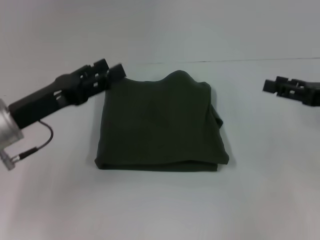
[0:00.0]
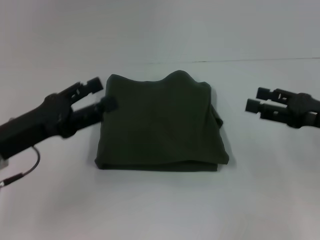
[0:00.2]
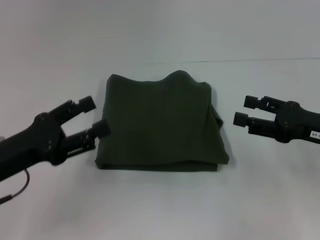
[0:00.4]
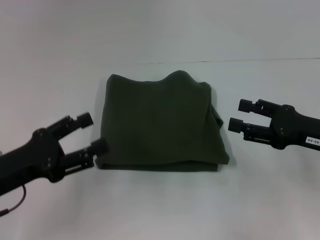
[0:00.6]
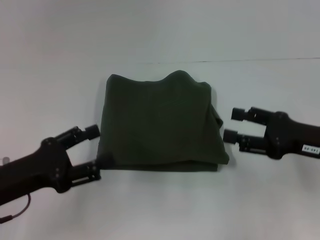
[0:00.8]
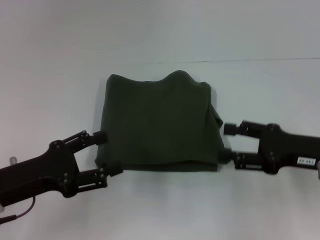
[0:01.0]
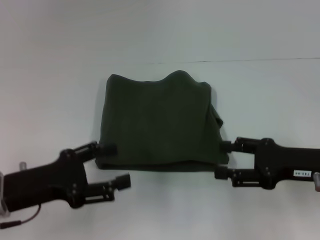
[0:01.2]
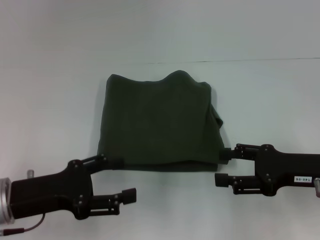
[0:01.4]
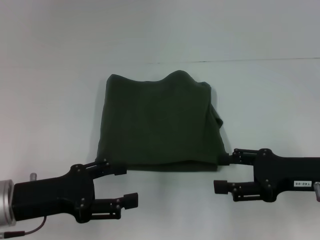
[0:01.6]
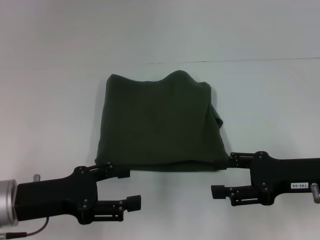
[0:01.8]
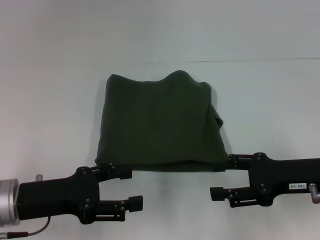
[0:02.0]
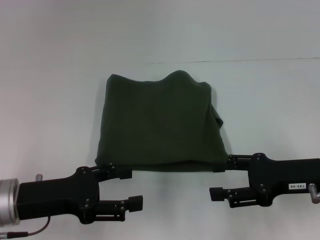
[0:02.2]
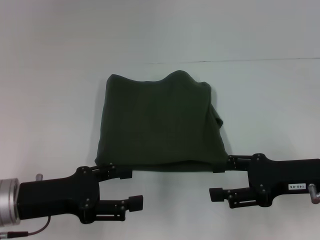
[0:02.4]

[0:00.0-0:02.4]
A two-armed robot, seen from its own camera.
0:00.0 to 0:01.2: The right gripper heads to the left, covering roughly 5 cm, while the left gripper moves backward, roughly 5 cm.
0:01.2 to 0:02.4: The grippers stay close to where they were, moving slightly.

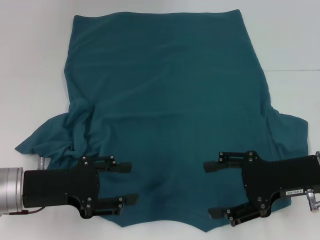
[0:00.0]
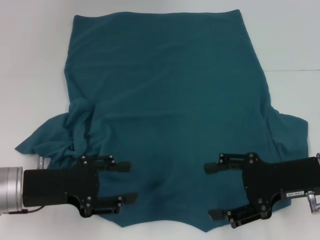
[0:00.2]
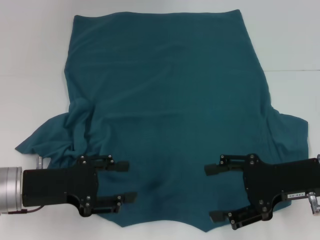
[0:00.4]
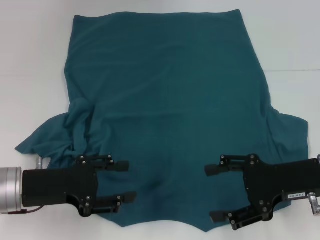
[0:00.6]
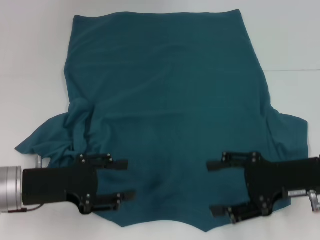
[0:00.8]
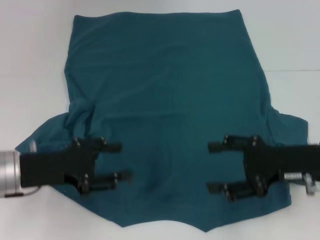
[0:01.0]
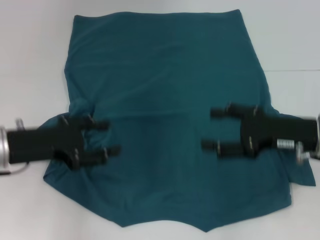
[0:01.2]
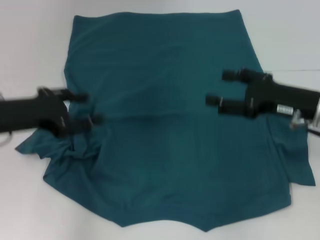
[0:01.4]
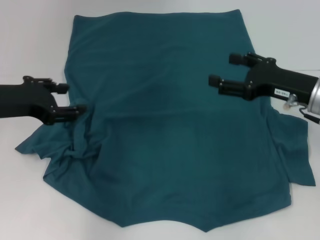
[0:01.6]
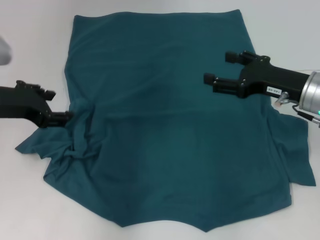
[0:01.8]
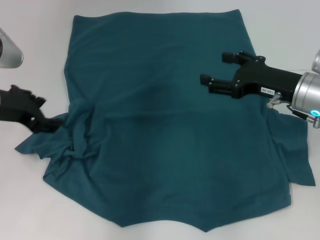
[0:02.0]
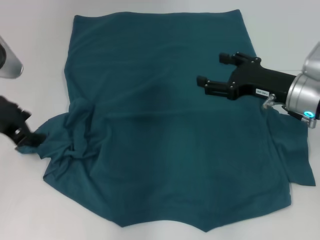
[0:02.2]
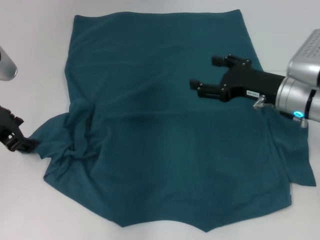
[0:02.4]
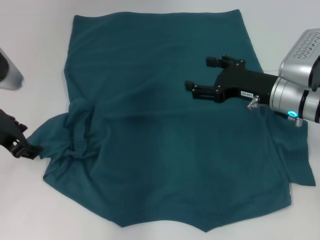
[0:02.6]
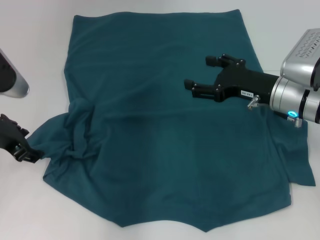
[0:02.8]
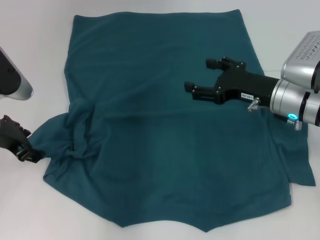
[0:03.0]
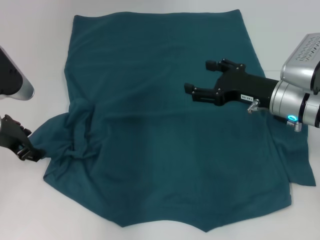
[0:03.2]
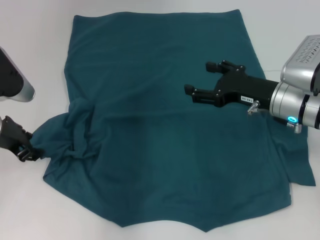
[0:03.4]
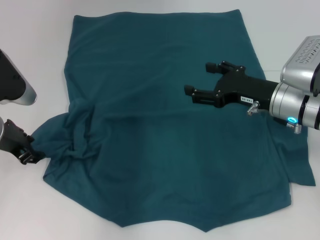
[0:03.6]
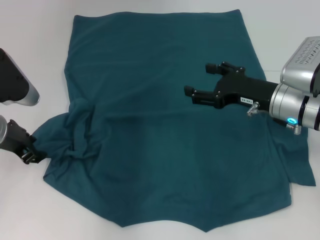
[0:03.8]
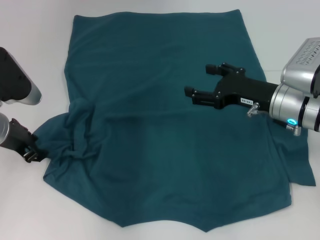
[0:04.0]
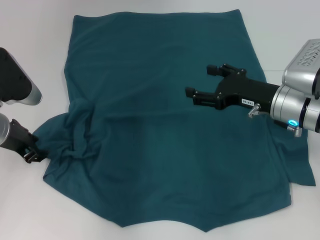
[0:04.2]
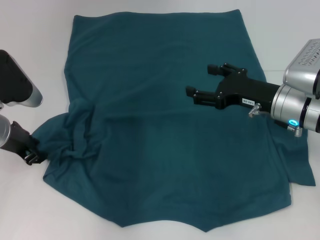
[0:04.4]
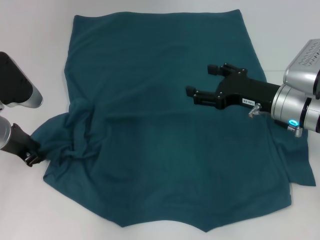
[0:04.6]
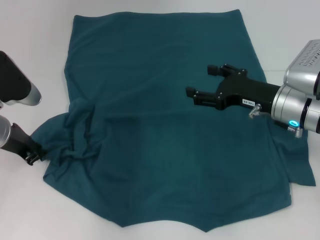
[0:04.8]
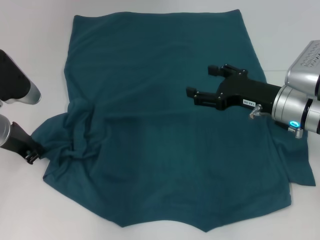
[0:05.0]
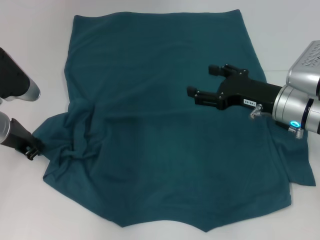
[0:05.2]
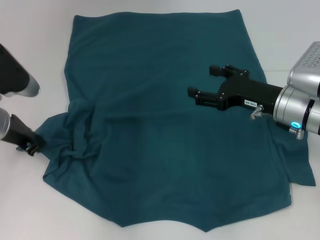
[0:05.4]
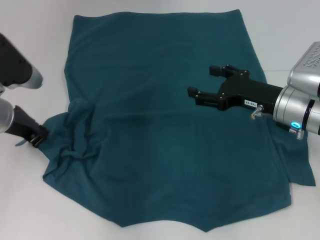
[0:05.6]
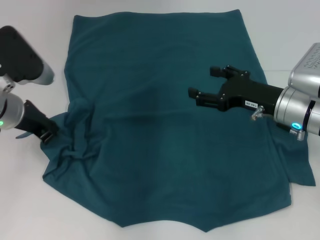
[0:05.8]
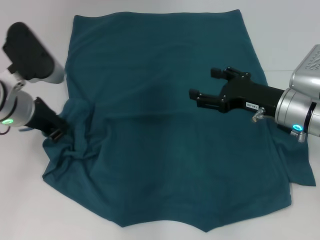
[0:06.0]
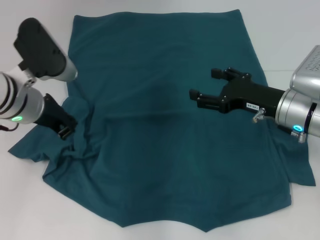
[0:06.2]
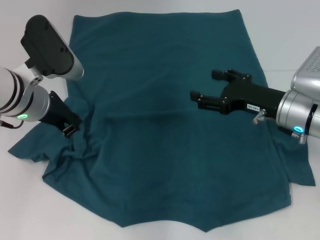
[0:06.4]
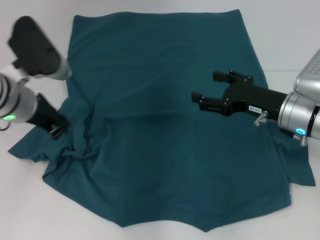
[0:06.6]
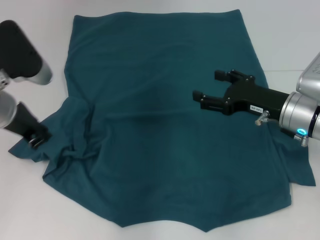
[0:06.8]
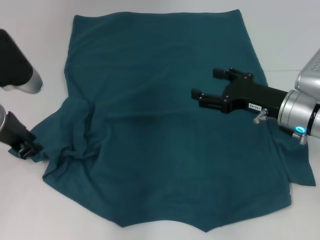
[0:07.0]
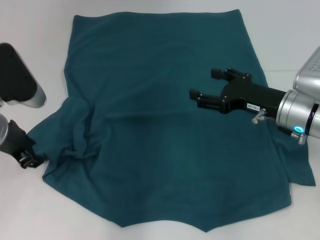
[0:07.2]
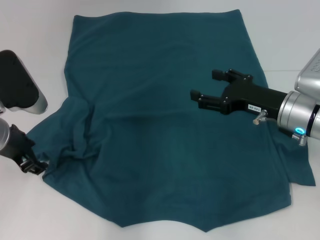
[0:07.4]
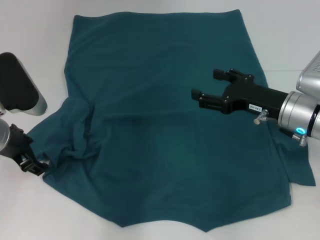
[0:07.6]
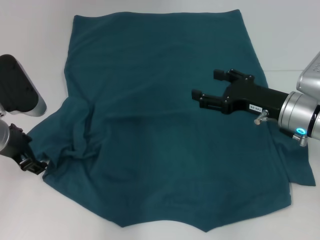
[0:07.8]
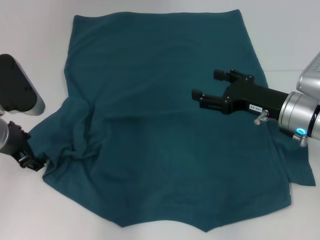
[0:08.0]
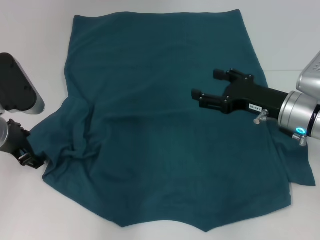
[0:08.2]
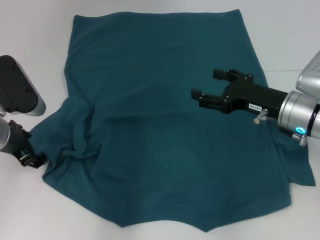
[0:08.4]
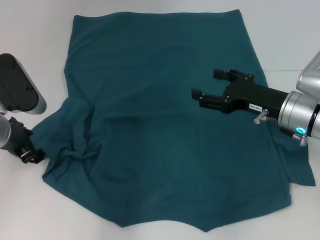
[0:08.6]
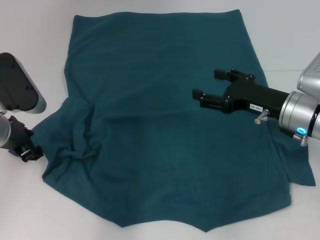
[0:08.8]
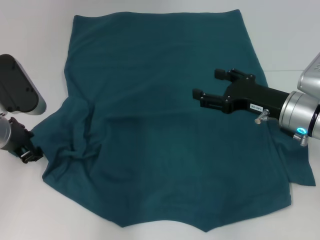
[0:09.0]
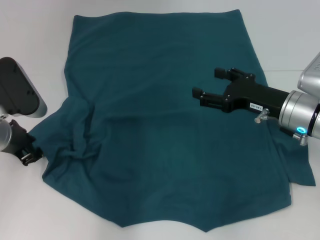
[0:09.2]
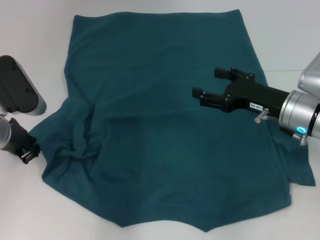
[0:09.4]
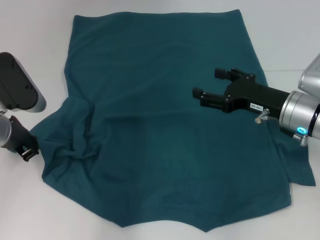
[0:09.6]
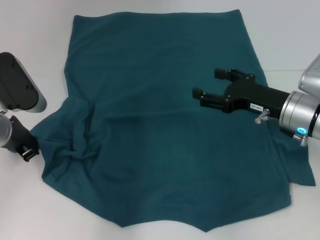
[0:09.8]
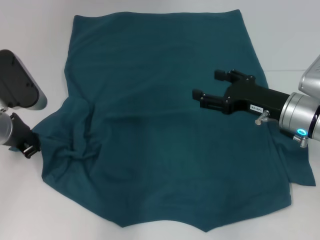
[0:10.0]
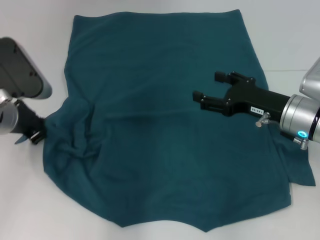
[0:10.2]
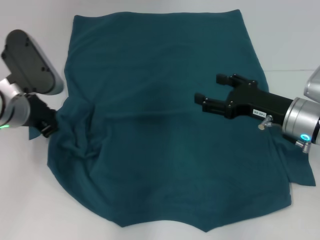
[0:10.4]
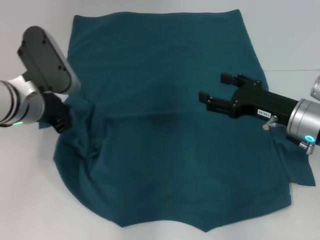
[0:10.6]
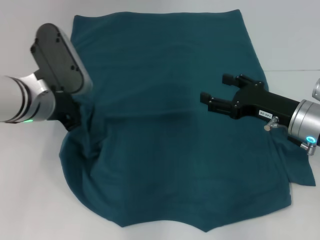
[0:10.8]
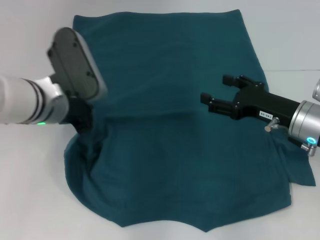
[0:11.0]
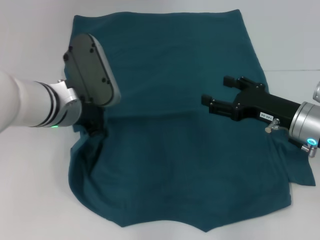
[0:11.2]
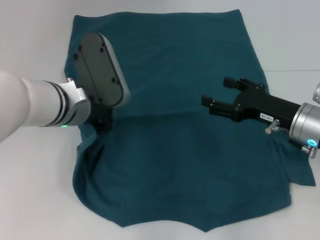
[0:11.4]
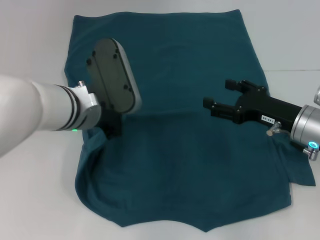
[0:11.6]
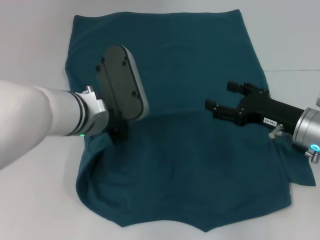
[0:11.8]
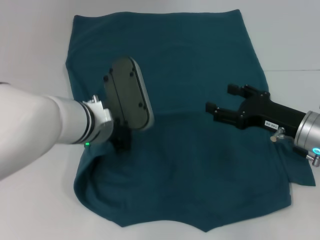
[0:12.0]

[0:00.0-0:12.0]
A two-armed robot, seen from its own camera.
0:00.0 to 0:01.6: The left gripper heads upward and forward, covering roughly 10 cm; the right gripper goes roughly 5 cm forward.
0:01.6 to 0:03.0: The right gripper ends up some 5 cm from where it was.
0:03.0 to 0:04.4: There are only small adjustments of the grippers.
0:04.4 to 0:06.0: The left gripper shifts by roughly 5 cm, and closes its fingers.
0:06.0 to 0:07.6: The left gripper opens its fingers.
0:07.6 to 0:09.0: There are only small adjustments of the grippers.
0:09.0 to 0:10.4: The left gripper closes its fingers.
0:10.4 to 0:12.0: The left gripper goes about 10 cm to the right.

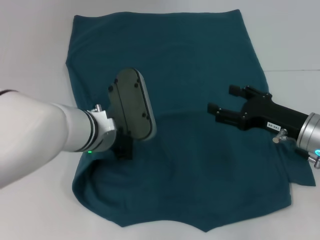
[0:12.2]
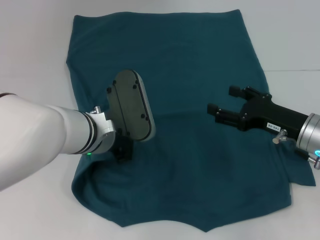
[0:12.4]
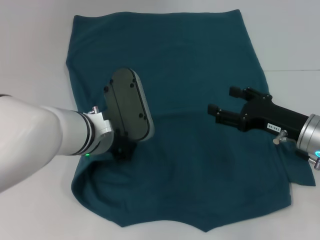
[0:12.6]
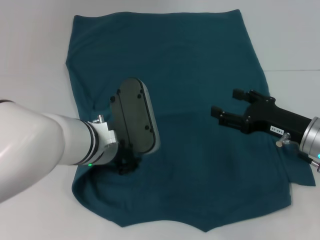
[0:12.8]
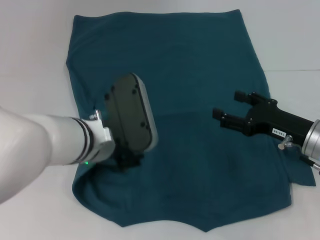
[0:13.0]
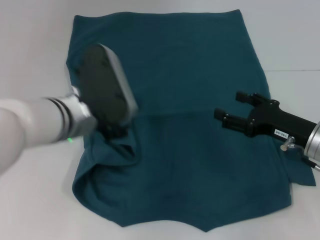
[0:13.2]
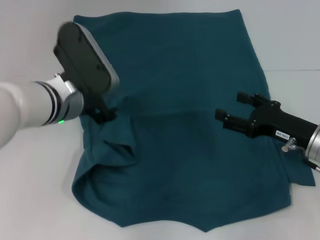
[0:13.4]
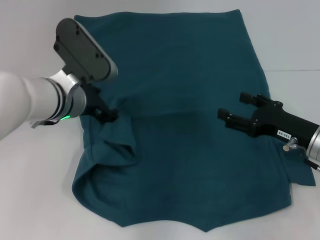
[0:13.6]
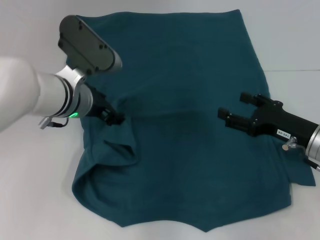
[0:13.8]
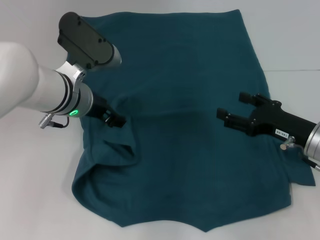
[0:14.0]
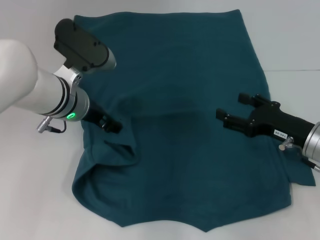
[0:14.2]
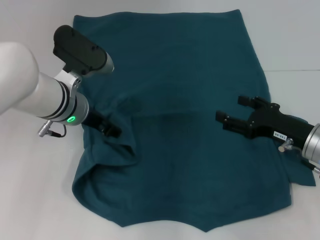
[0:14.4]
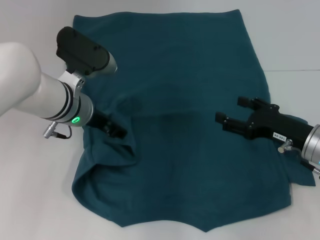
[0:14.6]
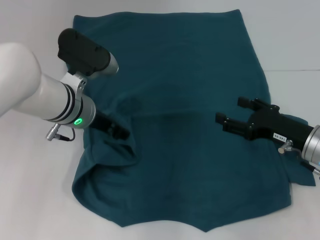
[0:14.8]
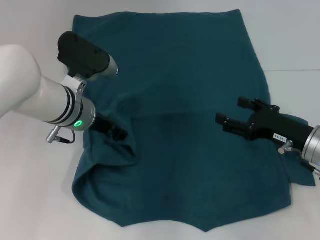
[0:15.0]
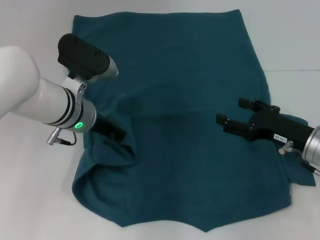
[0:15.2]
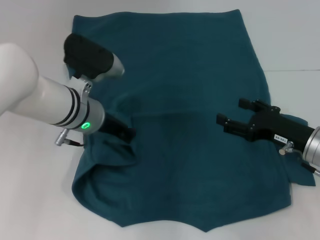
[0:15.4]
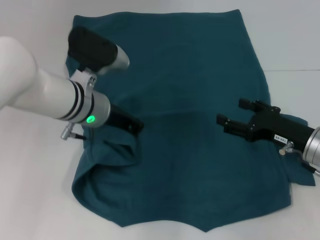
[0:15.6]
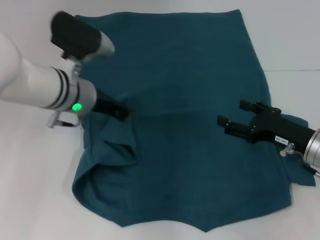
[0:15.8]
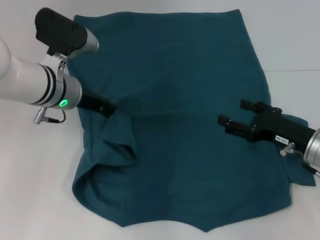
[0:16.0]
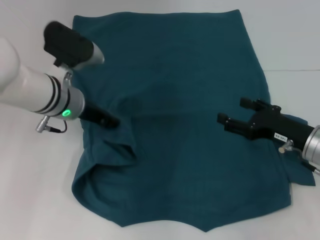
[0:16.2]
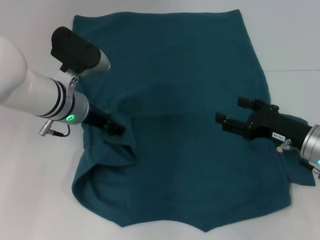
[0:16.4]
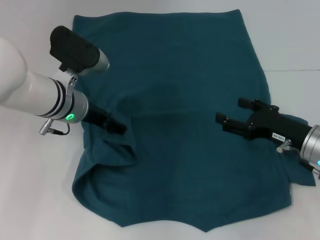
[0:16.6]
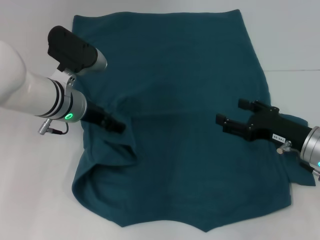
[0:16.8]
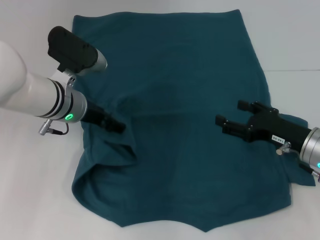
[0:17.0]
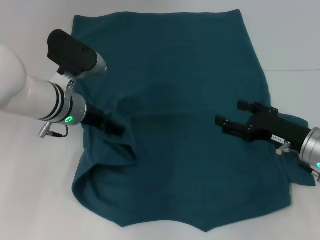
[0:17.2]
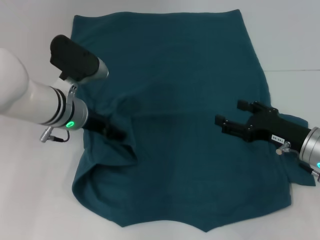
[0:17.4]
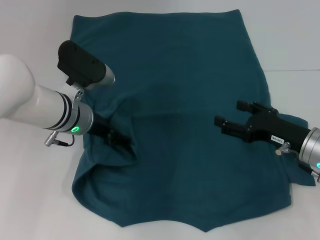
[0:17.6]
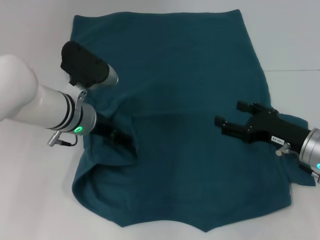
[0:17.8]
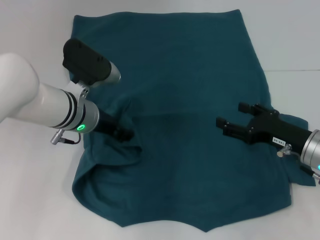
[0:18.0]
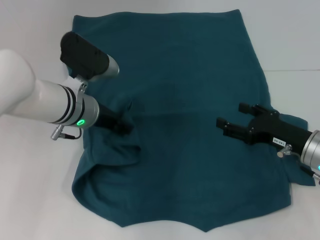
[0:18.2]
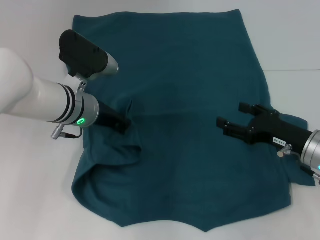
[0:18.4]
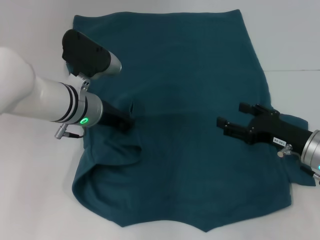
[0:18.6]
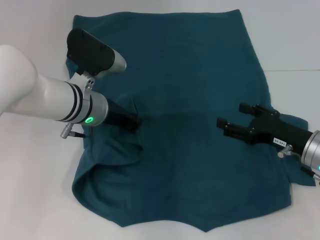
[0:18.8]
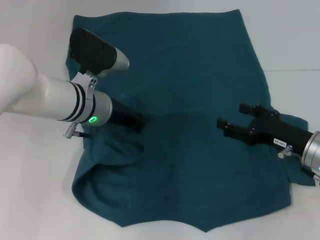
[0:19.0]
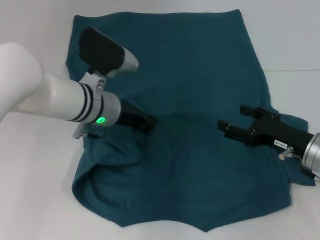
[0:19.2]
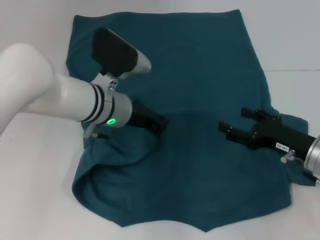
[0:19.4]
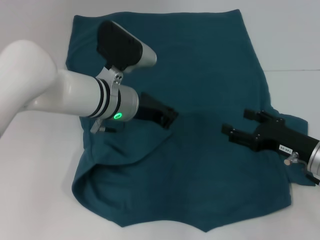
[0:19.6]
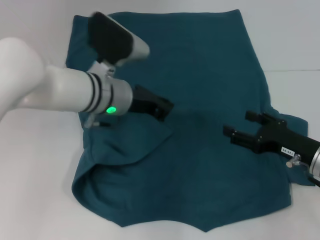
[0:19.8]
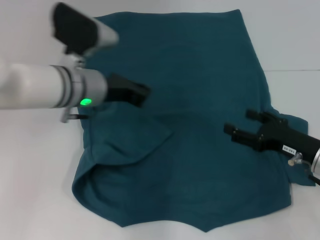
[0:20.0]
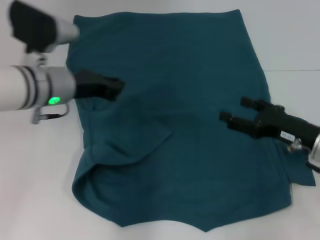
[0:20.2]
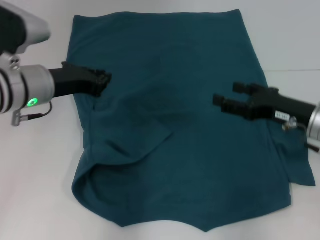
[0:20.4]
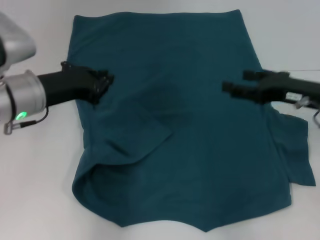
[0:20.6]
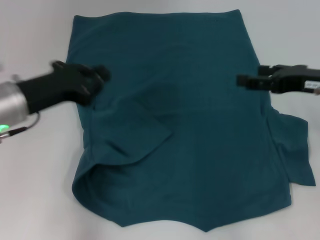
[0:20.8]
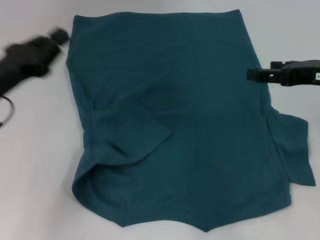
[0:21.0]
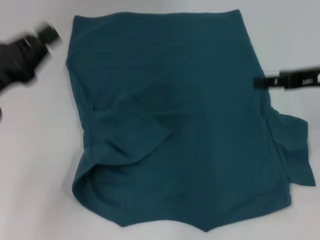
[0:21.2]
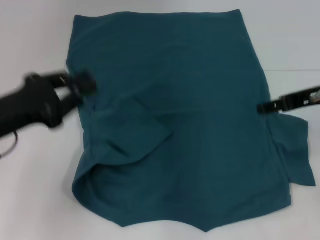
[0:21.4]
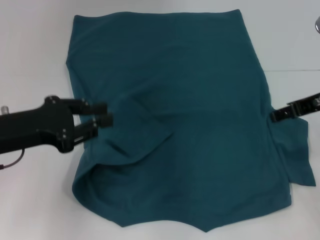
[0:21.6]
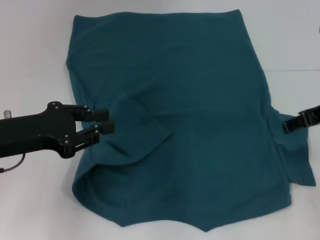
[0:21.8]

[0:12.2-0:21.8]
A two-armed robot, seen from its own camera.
Step, 0:12.2 to 0:20.0: Fold the bottom left sleeve with your left hand.
0:12.2 to 0:13.8: The left gripper ends up approximately 5 cm from where it was, and opens its fingers.
0:13.8 to 0:15.4: The left gripper closes up.
0:15.4 to 0:17.0: The left gripper opens.
0:17.0 to 0:18.6: The left gripper closes its fingers.
0:18.6 to 0:20.2: The left gripper shifts by some 5 cm.
0:20.2 to 0:21.8: The left gripper travels backward and to the left by about 15 cm, while the right gripper is displaced upward by some 15 cm.
